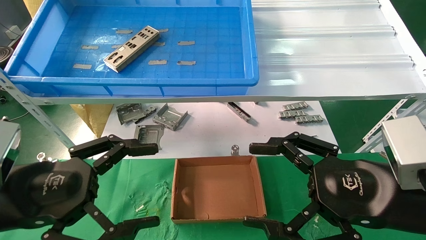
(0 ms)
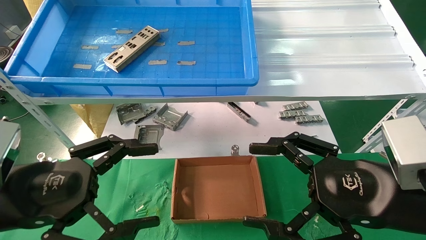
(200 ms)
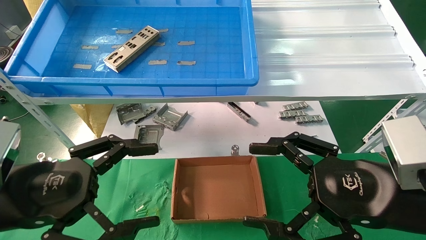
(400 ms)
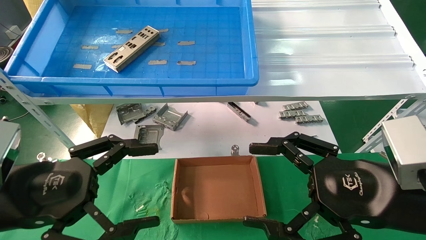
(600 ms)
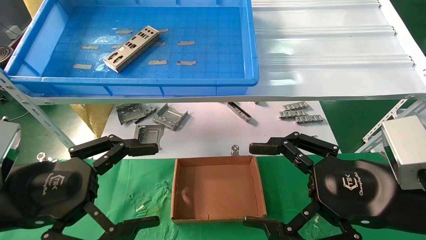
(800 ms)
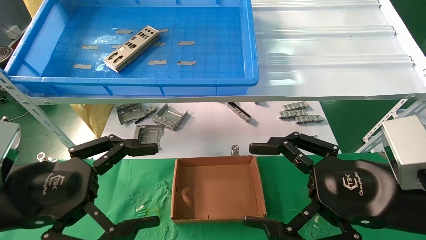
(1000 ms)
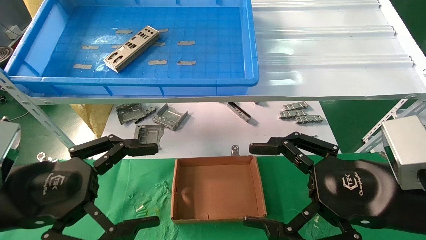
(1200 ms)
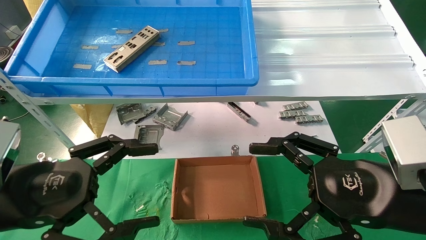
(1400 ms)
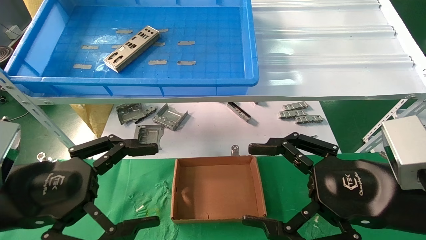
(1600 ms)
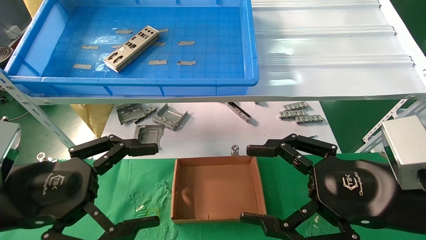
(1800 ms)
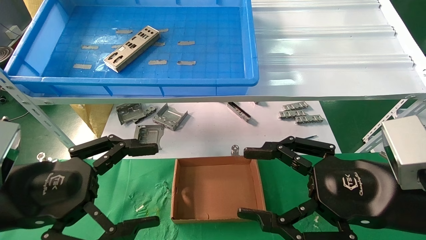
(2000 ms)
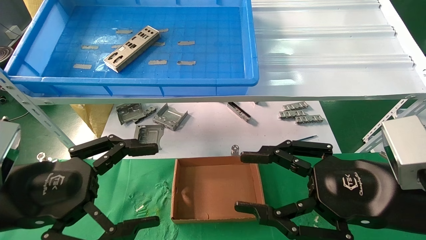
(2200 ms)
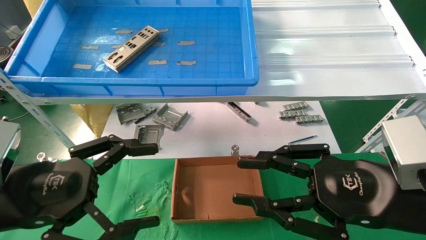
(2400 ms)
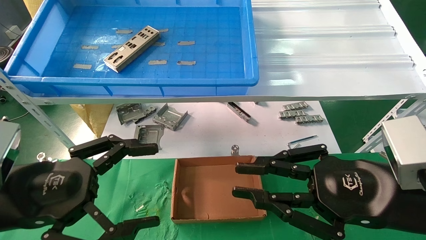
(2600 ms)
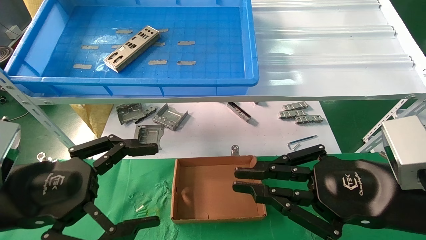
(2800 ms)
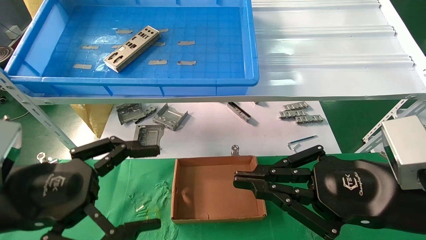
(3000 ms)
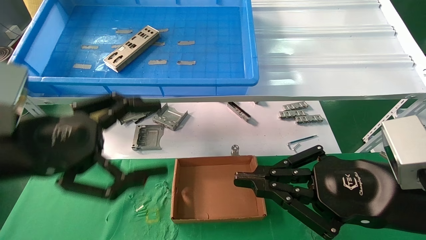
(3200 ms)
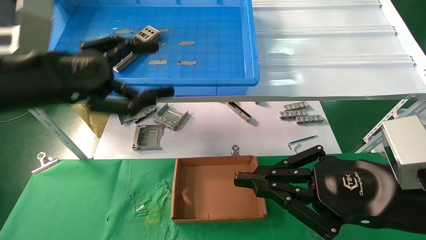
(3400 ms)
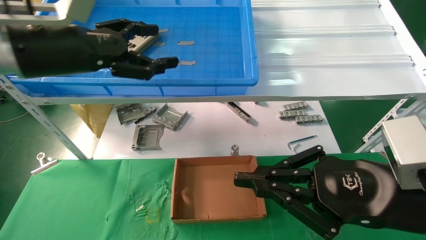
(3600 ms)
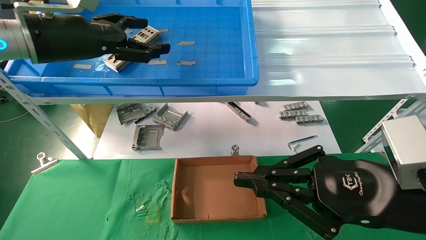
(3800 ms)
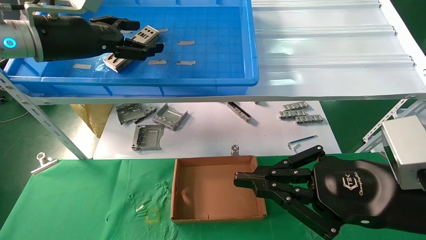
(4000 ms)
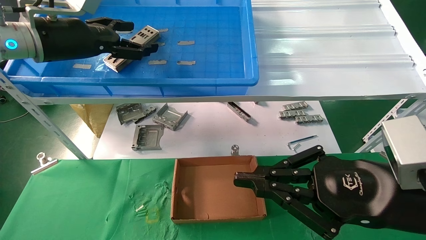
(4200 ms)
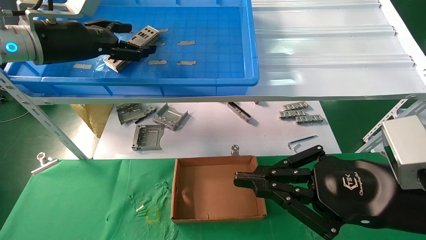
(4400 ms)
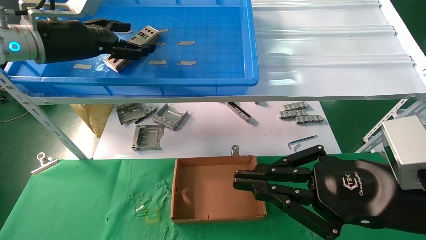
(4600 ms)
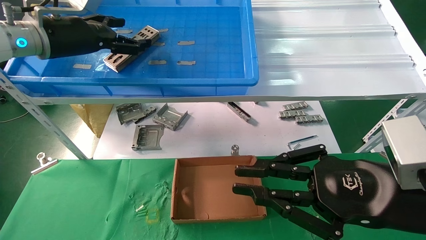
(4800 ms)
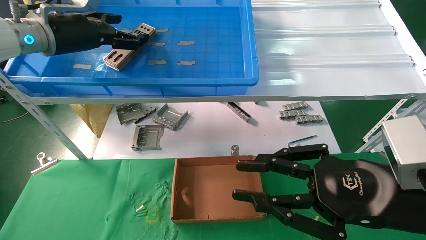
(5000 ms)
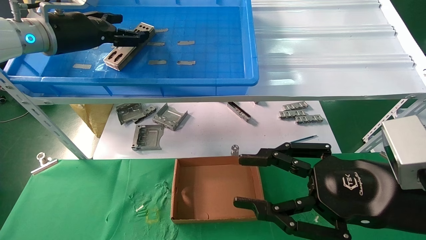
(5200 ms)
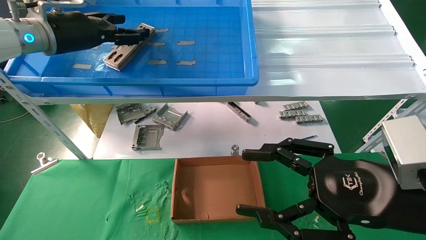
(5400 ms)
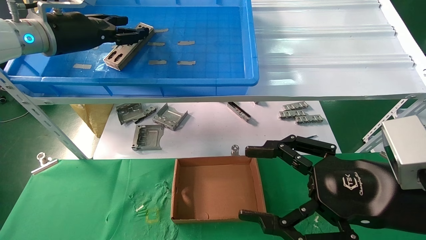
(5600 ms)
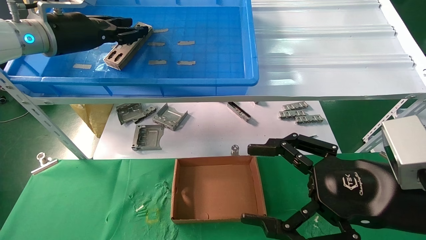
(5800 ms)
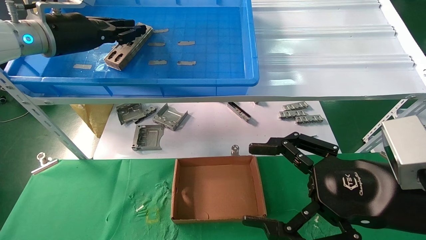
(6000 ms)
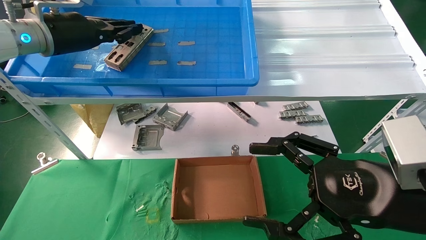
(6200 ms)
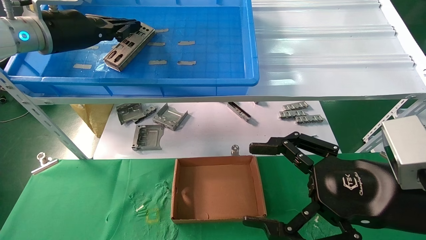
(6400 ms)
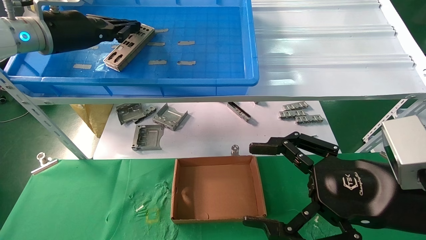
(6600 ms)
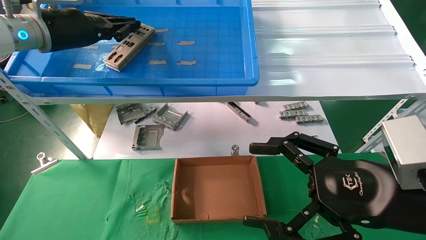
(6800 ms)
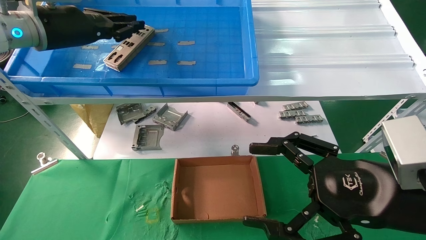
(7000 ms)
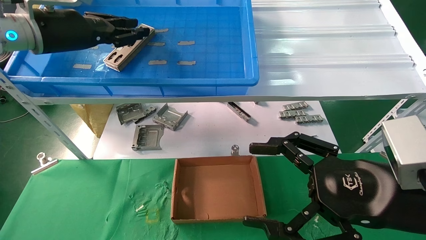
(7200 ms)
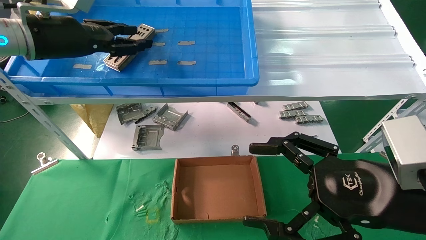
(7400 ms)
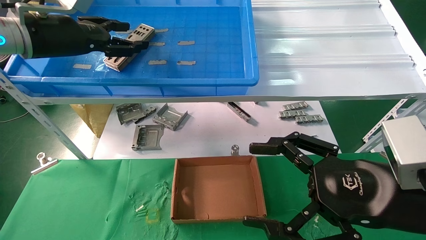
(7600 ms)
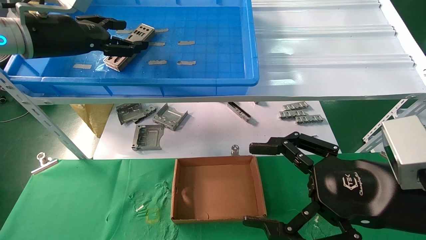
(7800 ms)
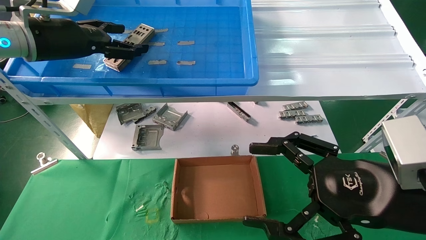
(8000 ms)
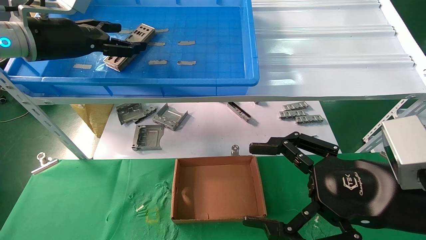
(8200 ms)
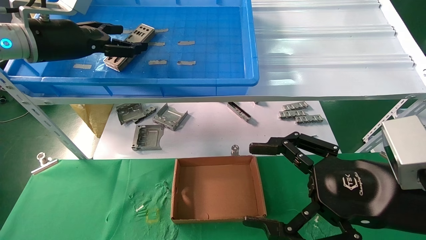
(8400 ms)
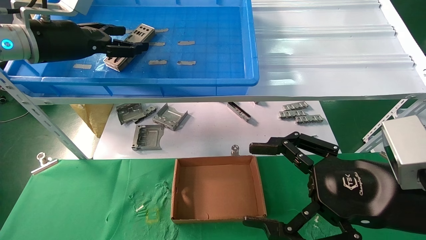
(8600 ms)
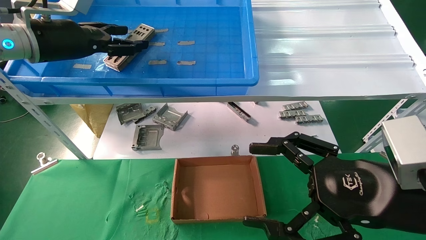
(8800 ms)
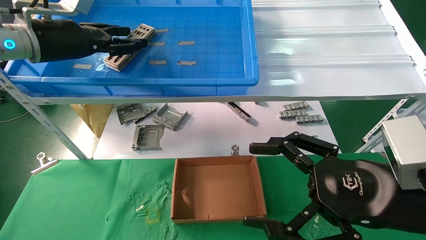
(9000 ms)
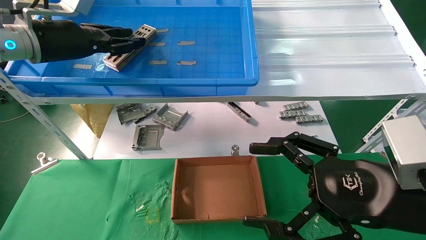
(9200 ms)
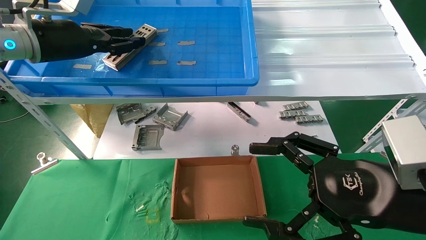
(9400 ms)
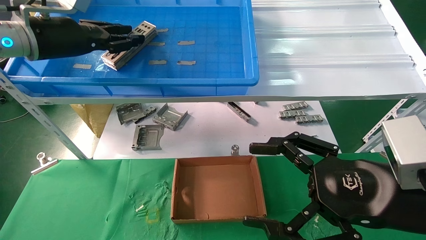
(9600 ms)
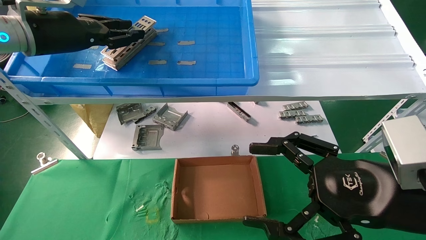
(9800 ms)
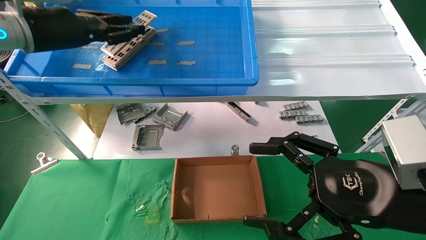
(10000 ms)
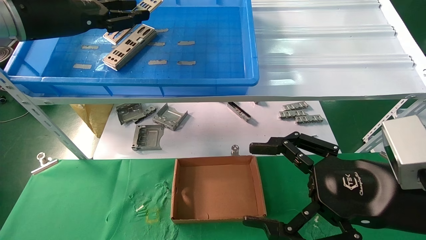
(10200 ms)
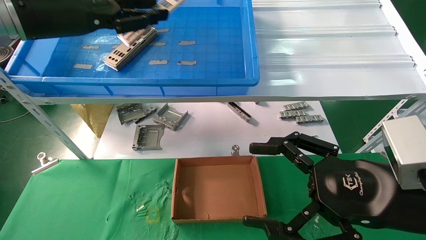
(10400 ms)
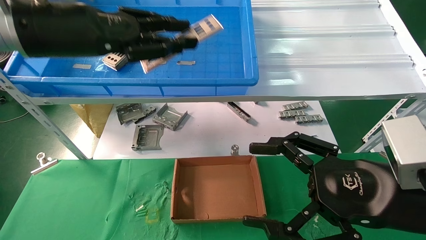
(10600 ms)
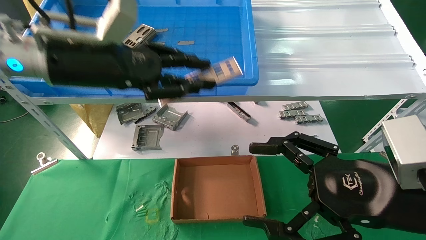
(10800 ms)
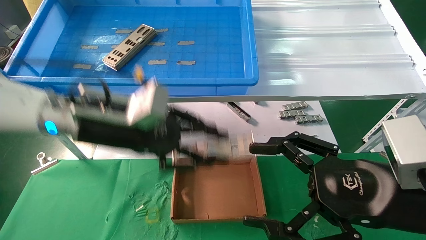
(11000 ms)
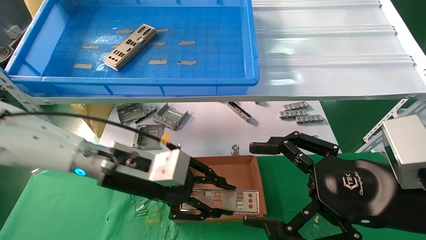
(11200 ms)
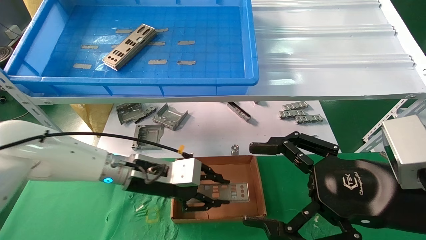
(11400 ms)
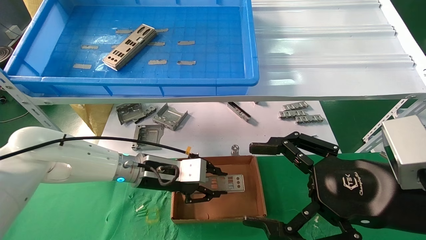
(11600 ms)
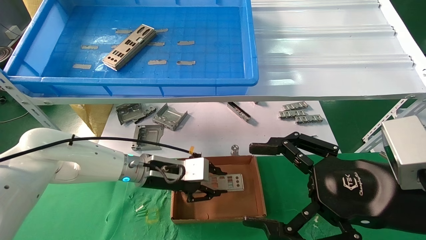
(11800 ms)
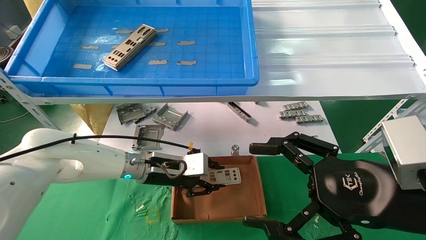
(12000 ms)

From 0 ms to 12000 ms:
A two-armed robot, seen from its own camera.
Task of the whole recording: pick up the parts on the tray and put them in the cardboard box.
Step, from 3400 ms to 9400 ms: Pick up the IO bracket from the container box.
From 0 ms to 1600 ms: The two grippers keep their place.
From 1600 ms to 3000 ms: The right gripper closes its fingers.
From 3000 ms to 4400 ms: The left gripper heads forward and upward, covering some 25 cm.
From 4400 ms to 6000 ms: The right gripper opens up, while the left gripper closes.
From 6000 ms to 9000 ms: The grippers make only small movements.
From 9000 ms to 10400 ms: The left gripper heads backward, covering roughly 5 cm, and closes up.
From 10400 ms to 12000 ms: The left gripper heads downward and to the right, covering roughly 30 cm.

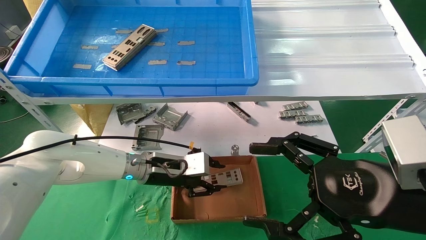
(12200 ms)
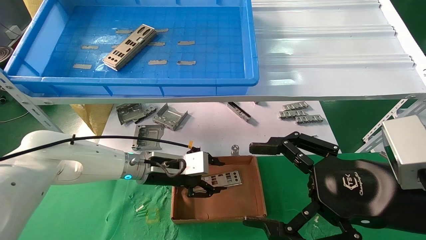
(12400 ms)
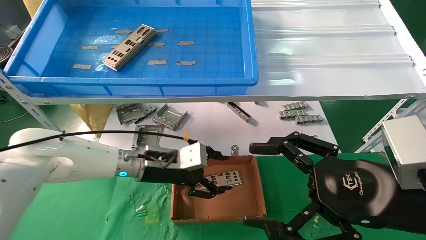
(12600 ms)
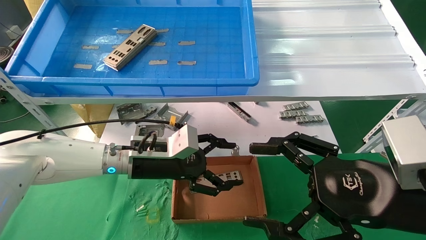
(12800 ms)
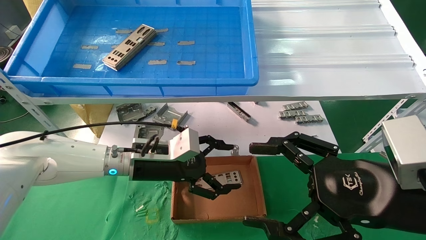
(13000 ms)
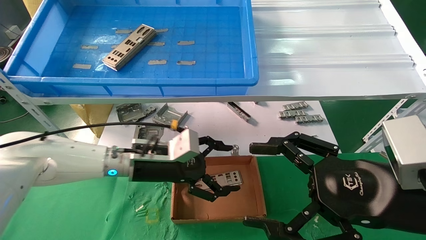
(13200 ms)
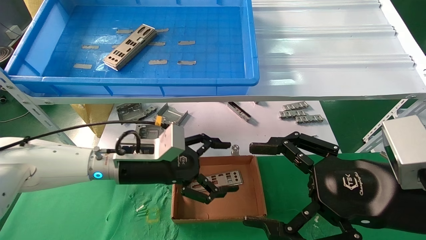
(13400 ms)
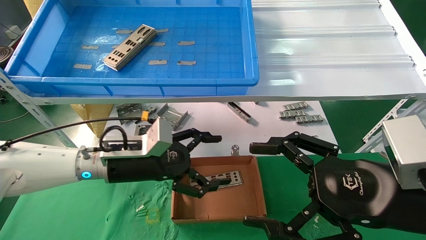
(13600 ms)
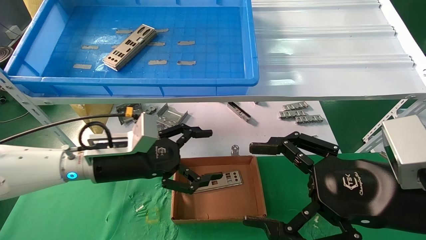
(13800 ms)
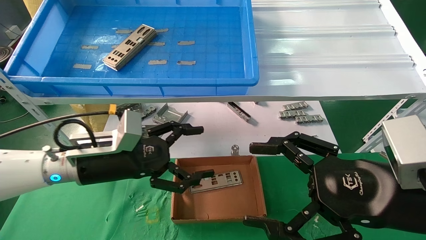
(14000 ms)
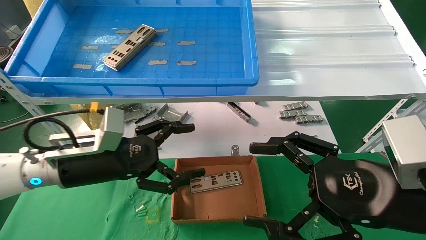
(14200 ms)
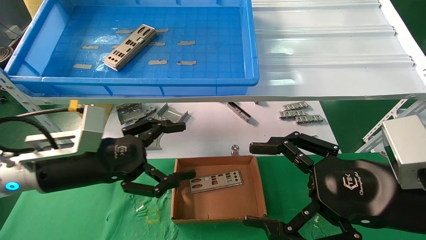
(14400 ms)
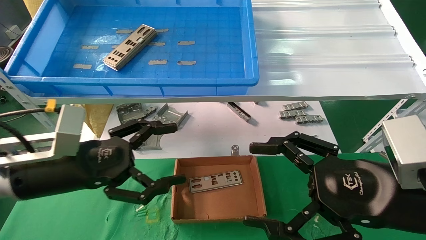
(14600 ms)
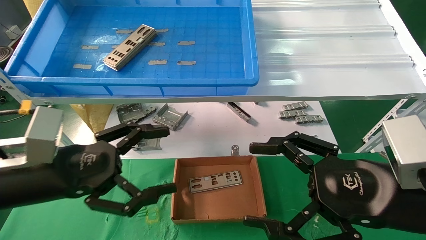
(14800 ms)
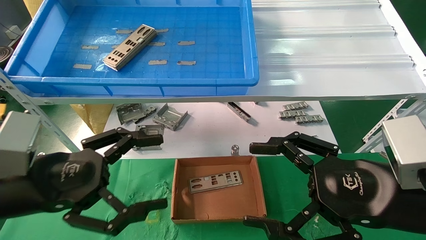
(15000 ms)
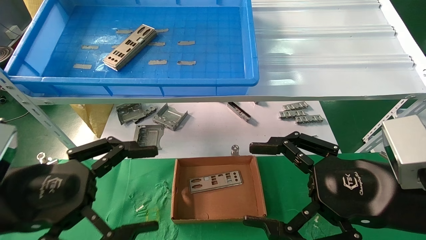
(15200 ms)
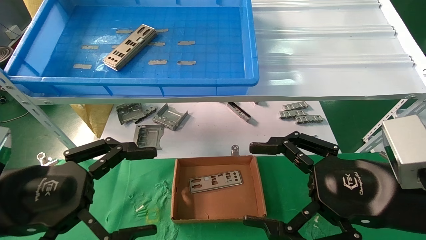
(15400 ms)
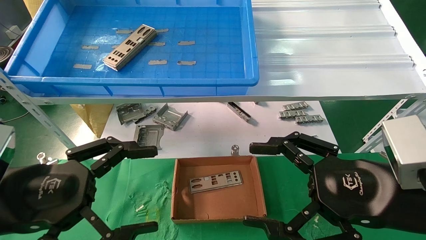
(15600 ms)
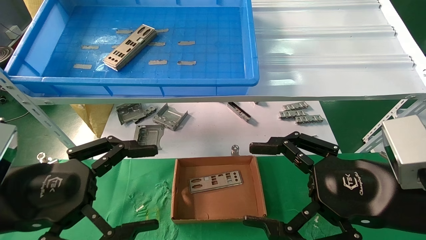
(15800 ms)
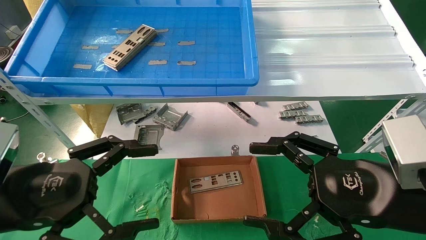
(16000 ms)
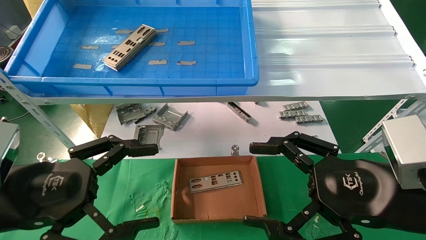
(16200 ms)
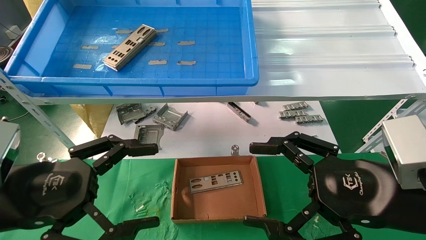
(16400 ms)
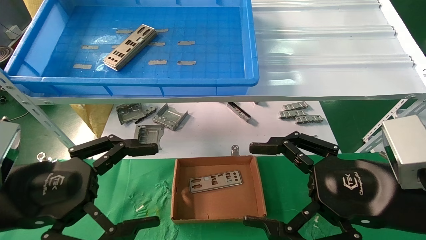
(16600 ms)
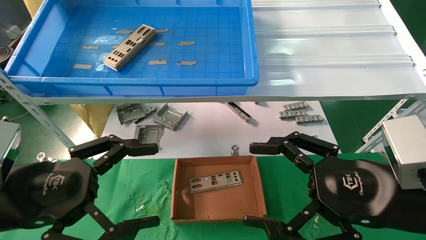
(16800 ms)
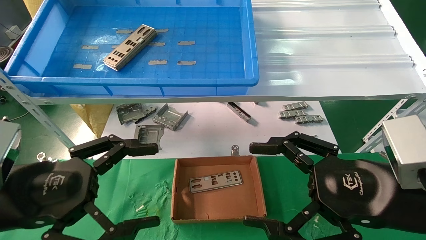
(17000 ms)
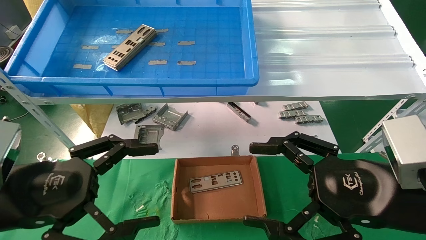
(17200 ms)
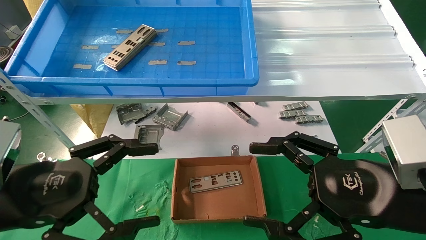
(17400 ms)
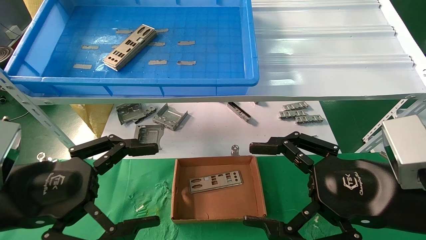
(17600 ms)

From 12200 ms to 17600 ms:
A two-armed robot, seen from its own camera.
Task of the whole recording: pick up the parts on the tray and put them in the cardboard box.
From 12200 ms to 13600 ms: The left gripper travels backward by about 5 cm, and opens.
From 13600 ms to 15000 ms: The left gripper is displaced backward and to the left by roughly 20 cm.
From 15000 ms to 16200 ms: The grippers make only small movements.
From 16200 ms to 17600 ms: Both grippers stay put.
